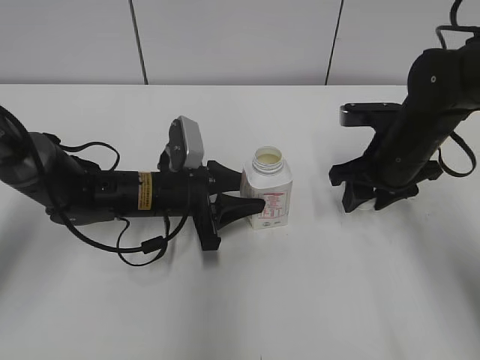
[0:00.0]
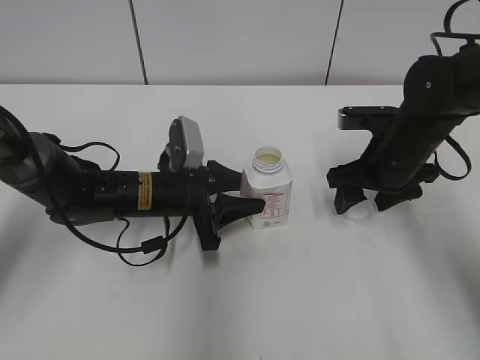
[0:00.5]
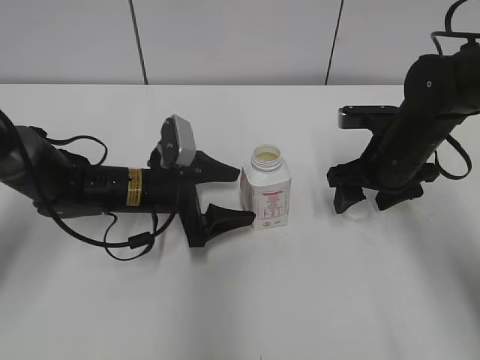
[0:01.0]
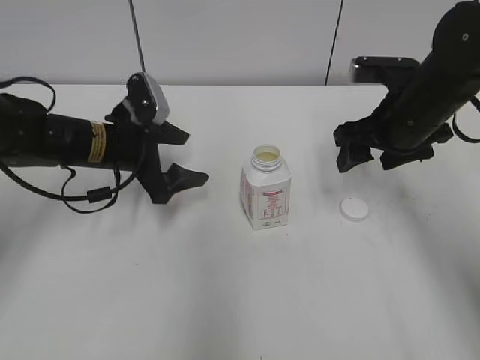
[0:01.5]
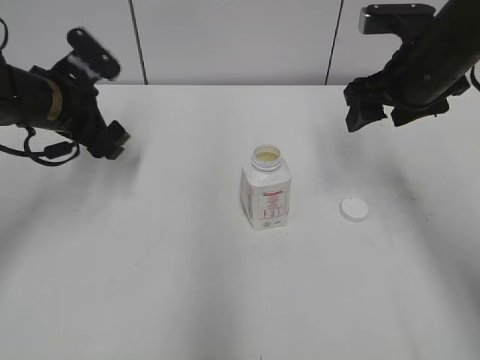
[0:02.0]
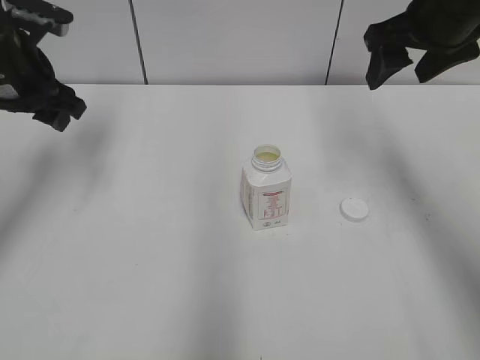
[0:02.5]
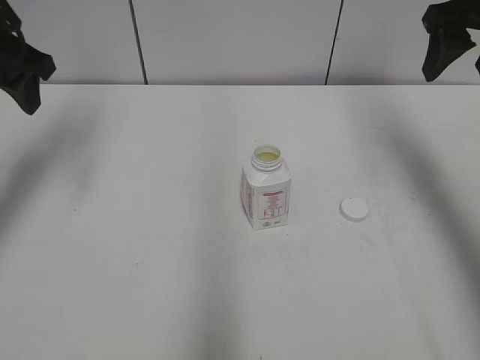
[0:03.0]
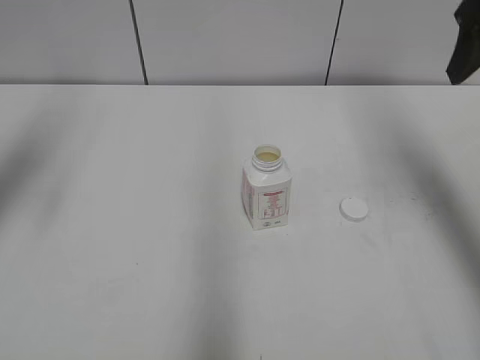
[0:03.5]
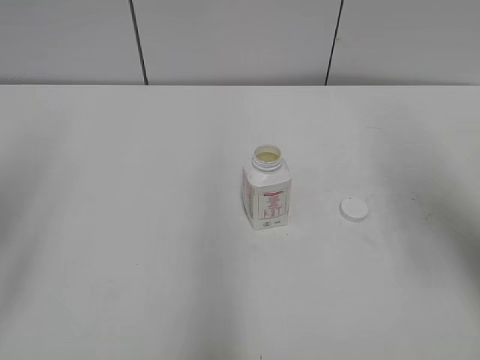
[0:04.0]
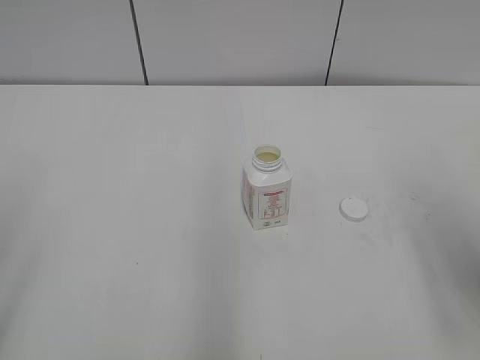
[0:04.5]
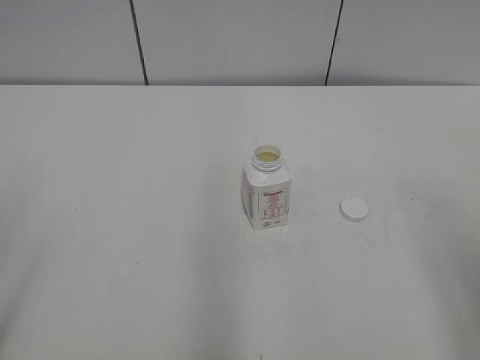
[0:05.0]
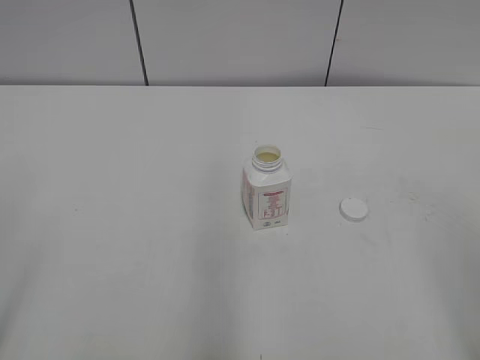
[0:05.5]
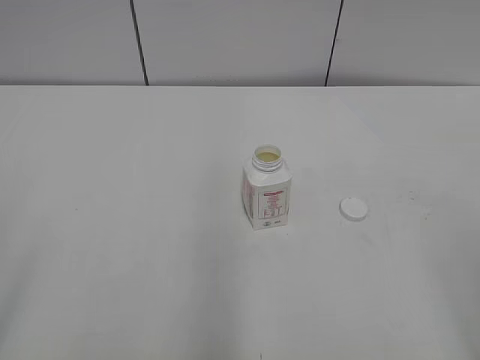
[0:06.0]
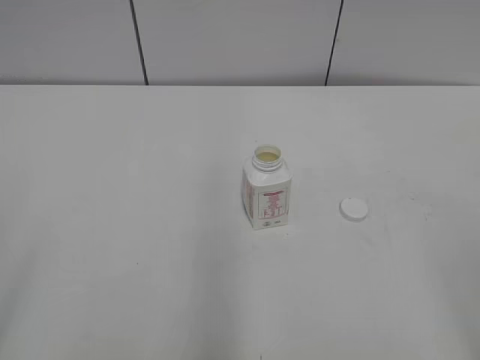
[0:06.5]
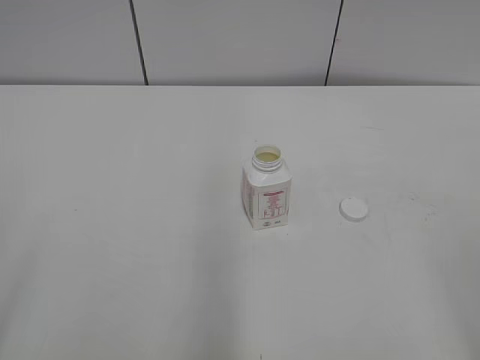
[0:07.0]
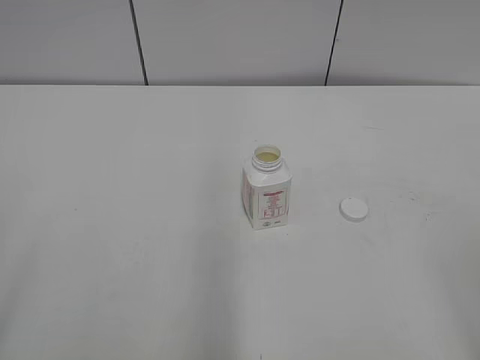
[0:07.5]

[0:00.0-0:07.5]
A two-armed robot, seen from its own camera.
Step, 0:00.5 to 0:01.0: Place the bottle on the table with the left gripper.
0:00.0 to 0:02.0: The right gripper goes about 10 cm upward, and opens its fingers. Meanwhile the left gripper heads to the left, upward and forward, covering about 15 cm, and opens its fingers.
0:02.0 to 0:04.0: The right gripper is displaced backward, upward and to the right by roughly 15 cm; the left gripper moves backward, upward and to the left, roughly 25 cm, and closes its fingers.
0:04.0 to 0:05.5: The right gripper is displaced backward by about 20 cm.
